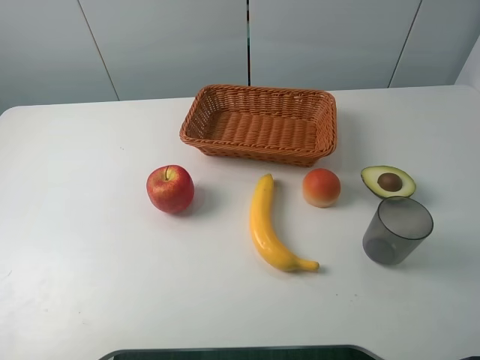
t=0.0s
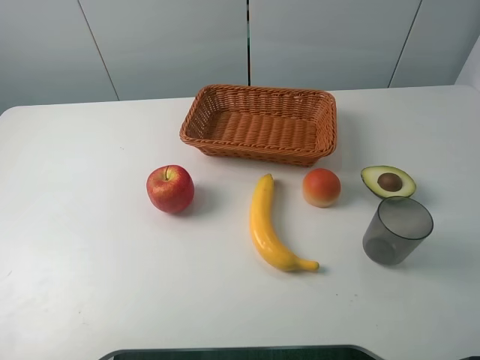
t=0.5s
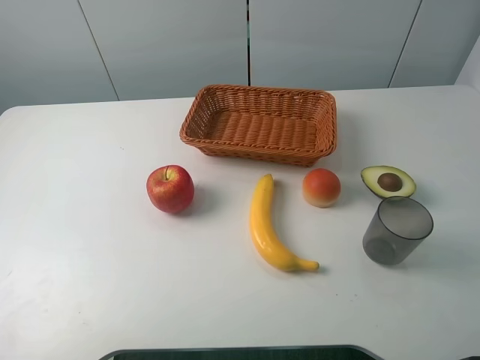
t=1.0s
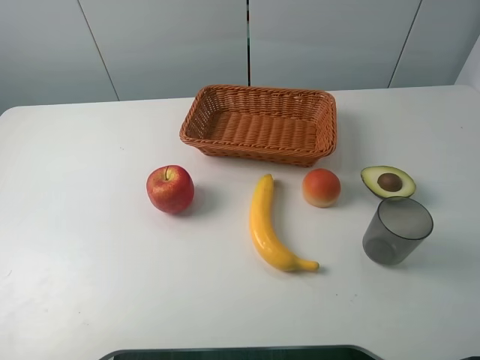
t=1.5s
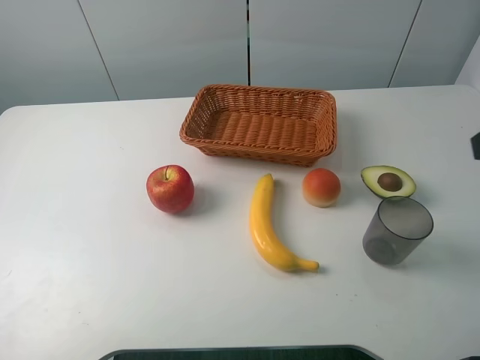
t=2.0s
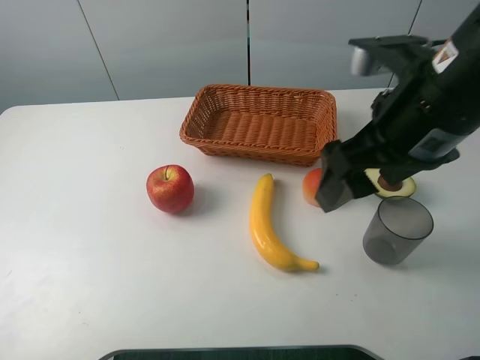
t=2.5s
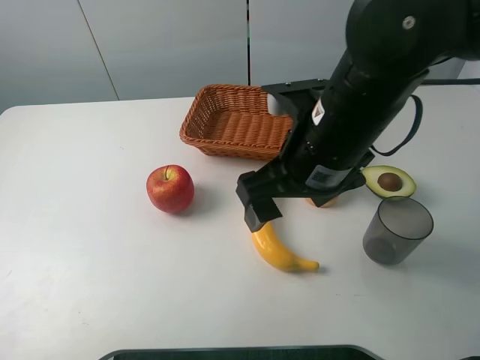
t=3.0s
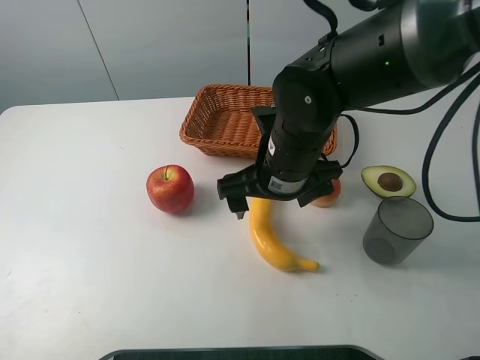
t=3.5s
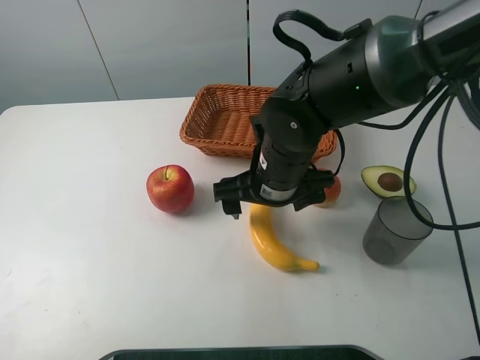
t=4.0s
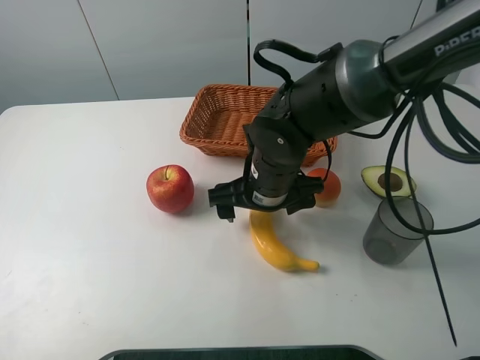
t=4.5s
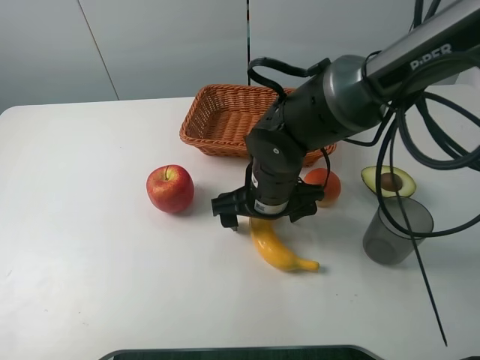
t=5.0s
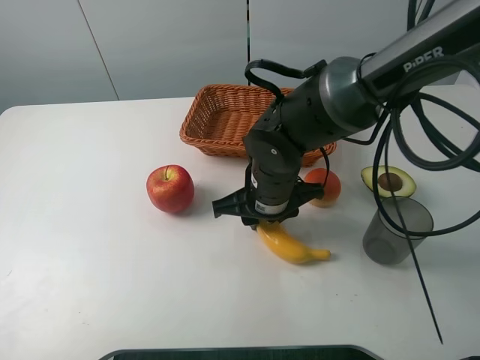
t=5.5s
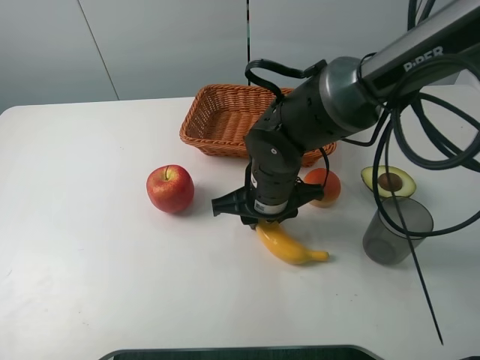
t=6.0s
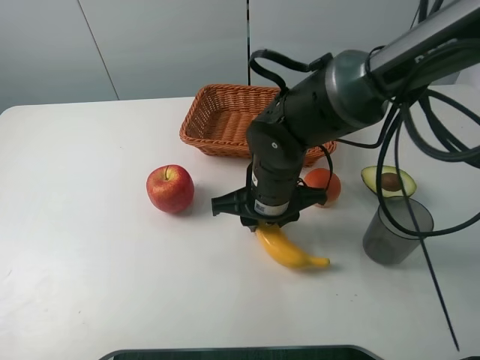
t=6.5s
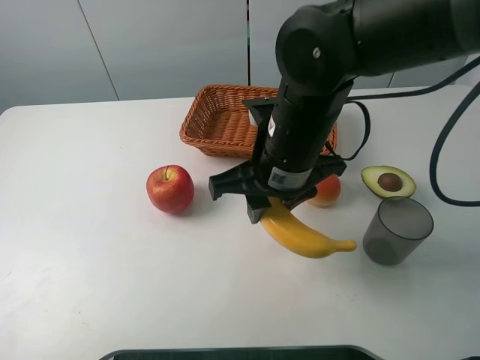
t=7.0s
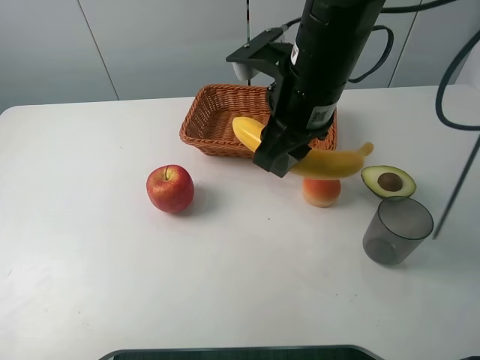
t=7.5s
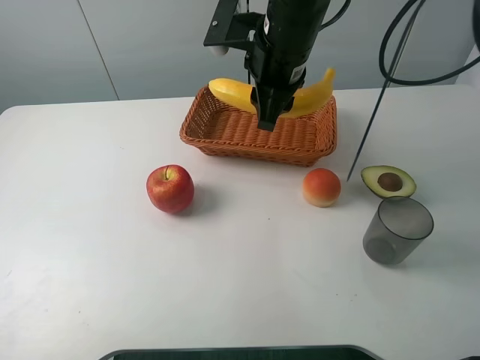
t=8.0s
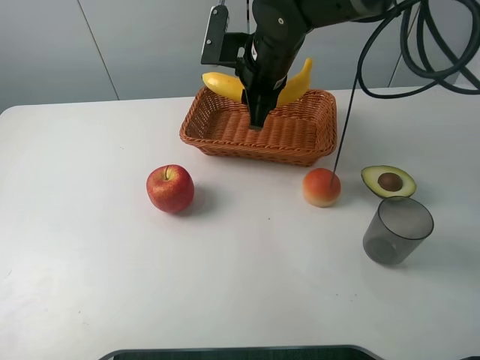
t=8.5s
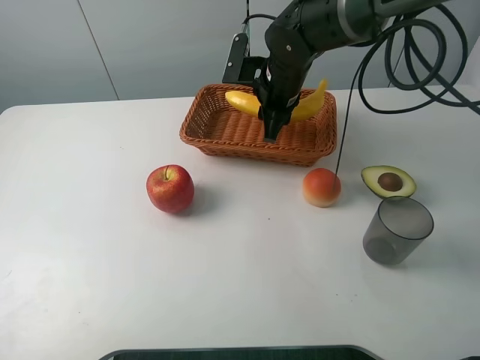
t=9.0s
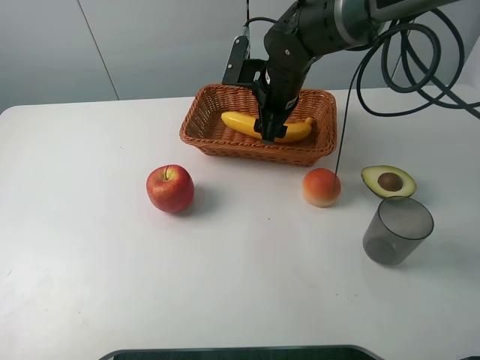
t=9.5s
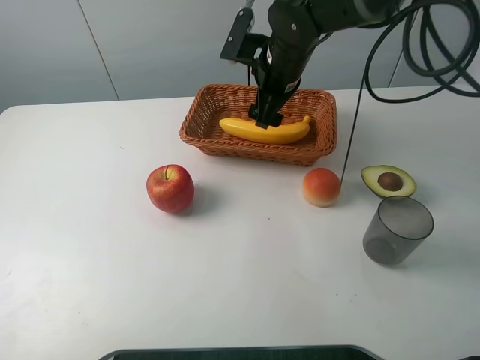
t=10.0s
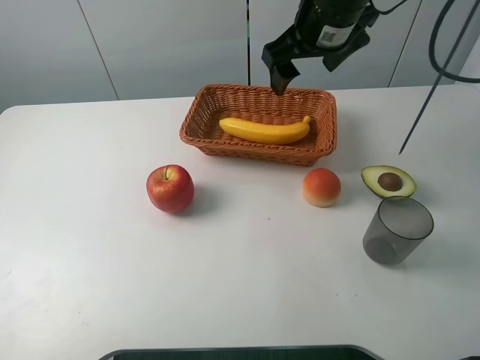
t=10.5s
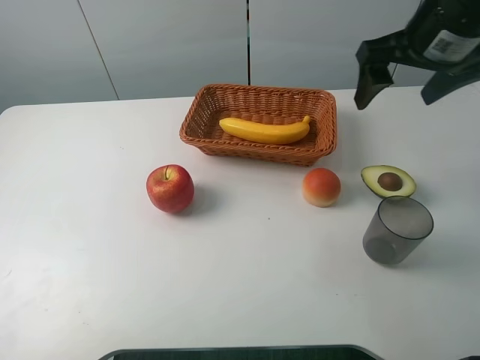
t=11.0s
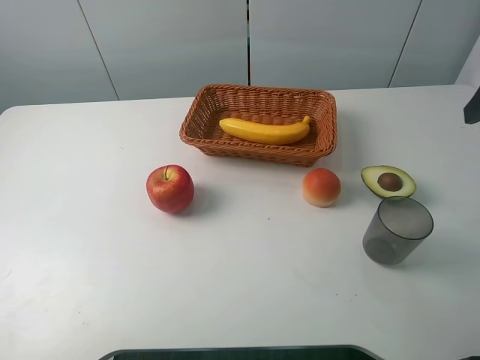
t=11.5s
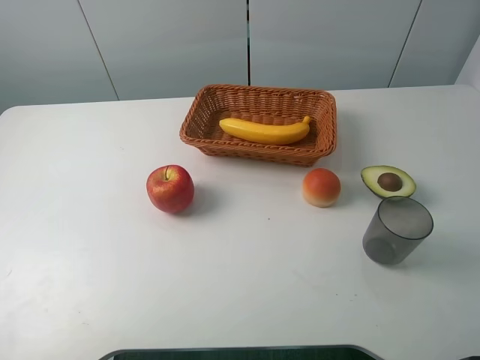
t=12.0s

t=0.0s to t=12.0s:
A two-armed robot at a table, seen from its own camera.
Task of the whole recording: randomly pick up an item from the table and put it in the basket.
Step, t=0.0s to t=5.5s: Grasp the banana with the right gripper.
Step, t=6.0s to t=10.0s: Place the banana into the basket with the right gripper.
t=2.0s to t=4.0s: The right gripper shifts about 30 cm to the left, downward and forward.
t=4.0s to t=6.0s: The right gripper closes.
t=6.0s to t=8.0s: The right gripper heads upward and forward, covering some 15 cm.
t=8.0s to t=10.0s: The right gripper heads forward, covering about 5 cm, and opens its fingers.
t=10.0s to t=12.0s: The right gripper shifts roughly 40 cm backward, to the right and upward.

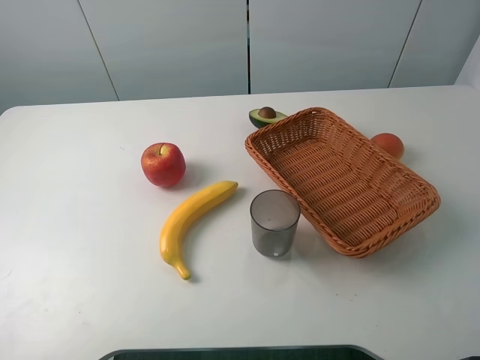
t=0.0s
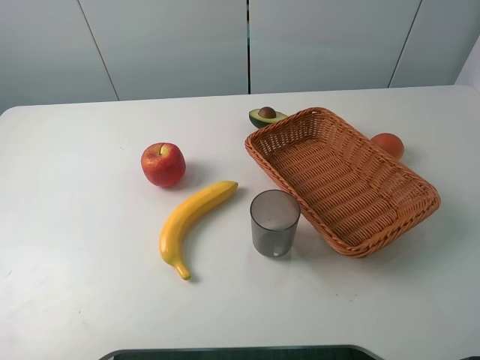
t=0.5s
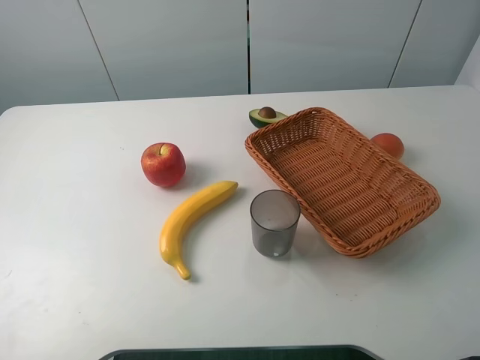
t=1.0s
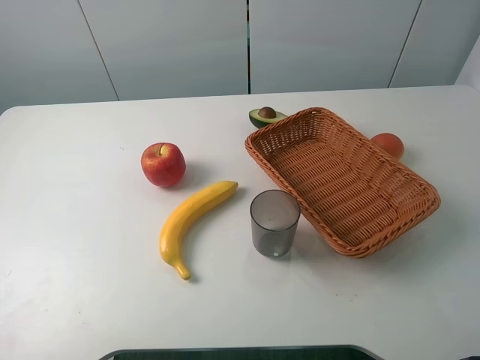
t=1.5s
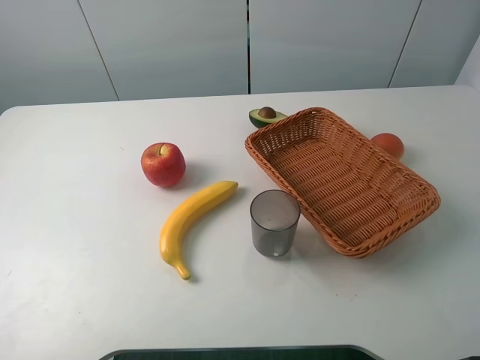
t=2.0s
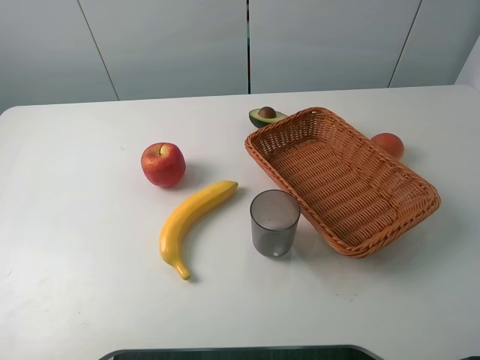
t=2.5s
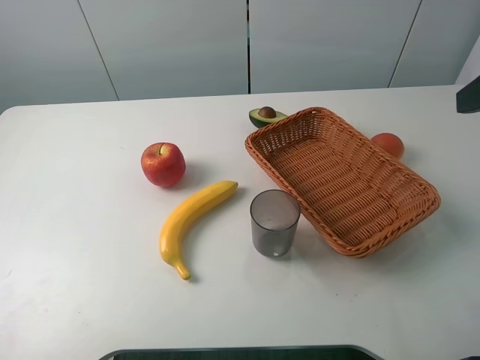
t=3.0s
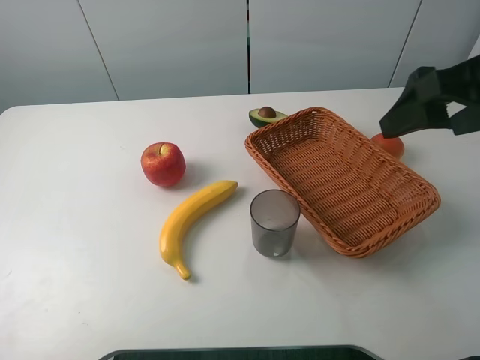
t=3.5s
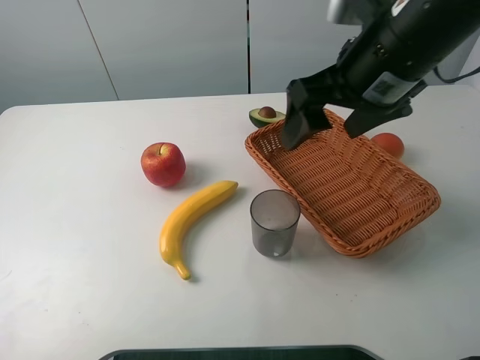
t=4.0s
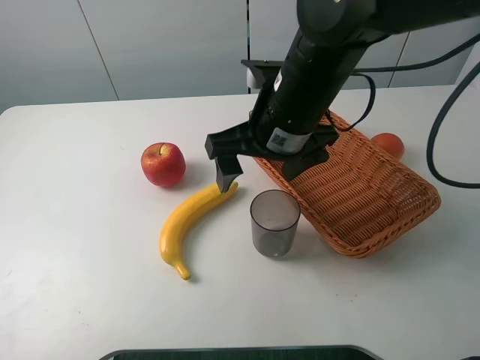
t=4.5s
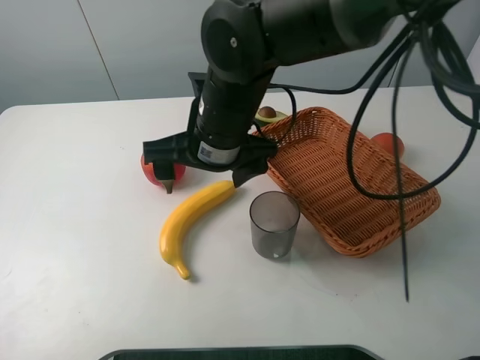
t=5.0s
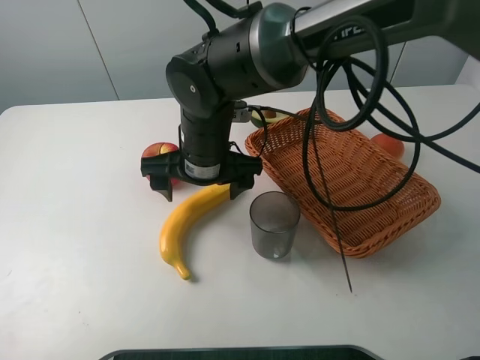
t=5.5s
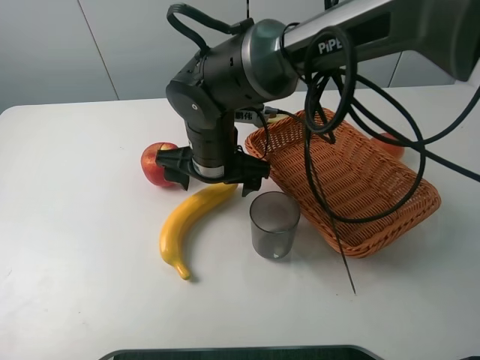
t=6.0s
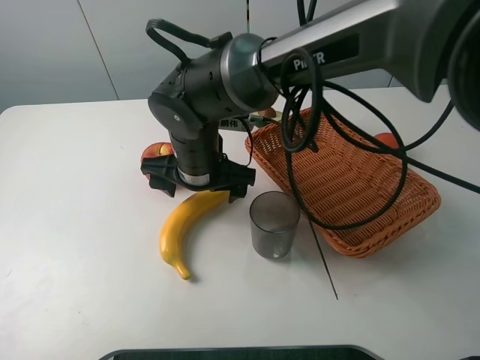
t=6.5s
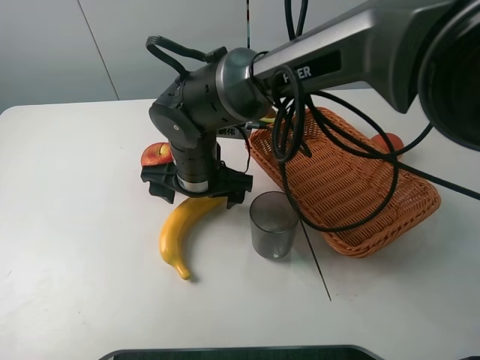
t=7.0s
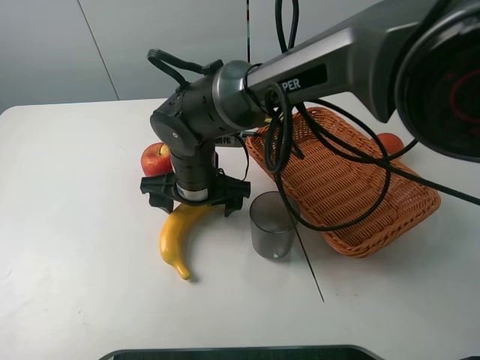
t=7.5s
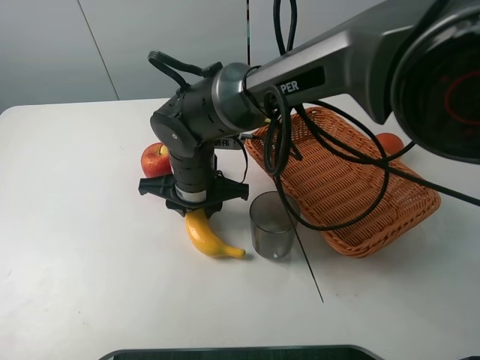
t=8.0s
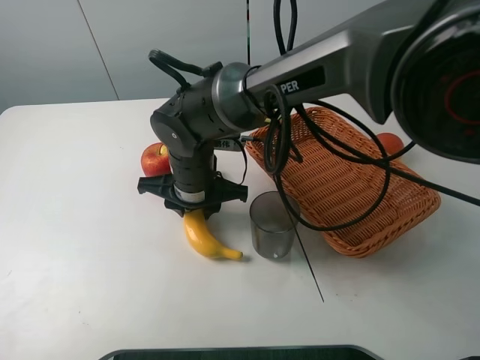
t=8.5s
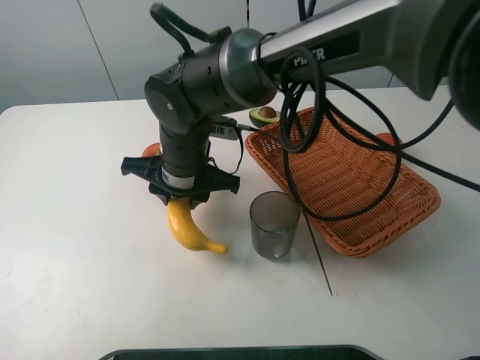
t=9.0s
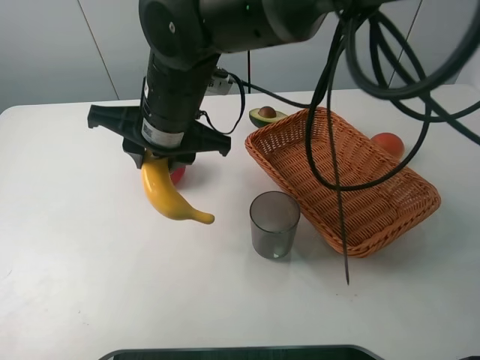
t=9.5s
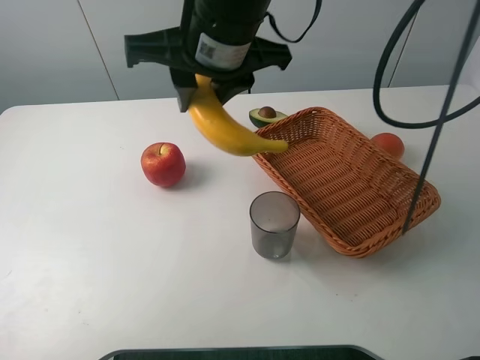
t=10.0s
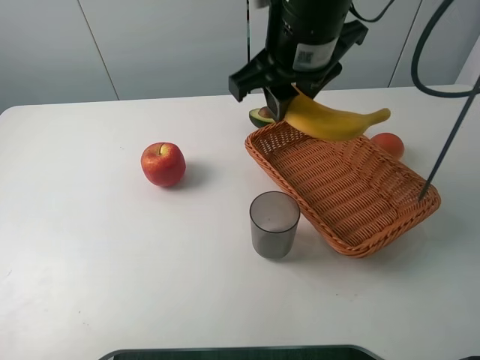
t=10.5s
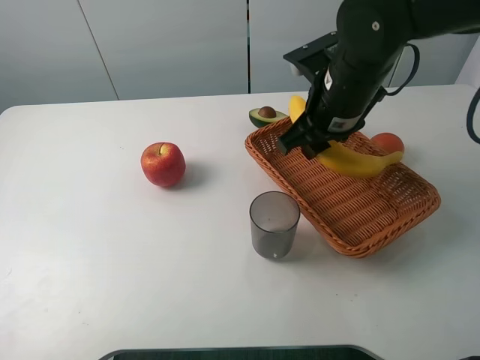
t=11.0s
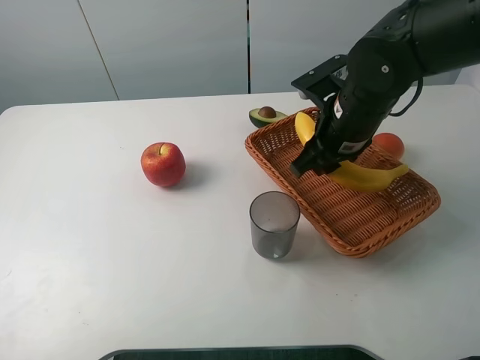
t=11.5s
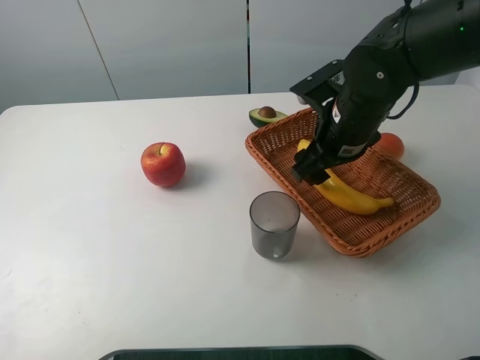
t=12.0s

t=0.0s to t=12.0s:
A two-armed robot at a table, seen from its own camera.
Task of the whole recording: randomly pick up an item from the table and put it in the basket.
Step, t=0.0s to t=8.0s: Grasp the banana with the right gripper.
t=0.0s to t=2.0s: Neither gripper changes place.
t=2.0s to t=4.0s: The right gripper shifts about 30 cm forward and to the left.
t=4.0s to t=6.0s: The right gripper travels to the left and downward by about 20 cm.
t=6.0s to t=8.0s: The right gripper closes up.
t=8.0s to t=10.0s: The right gripper shifts roughly 20 cm upward.
t=10.0s to t=12.0s: The right gripper goes roughly 20 cm downward and to the right, and opens its fingers.

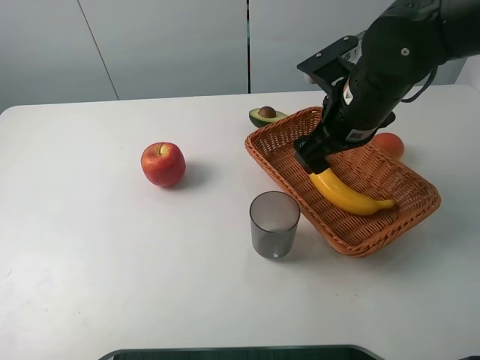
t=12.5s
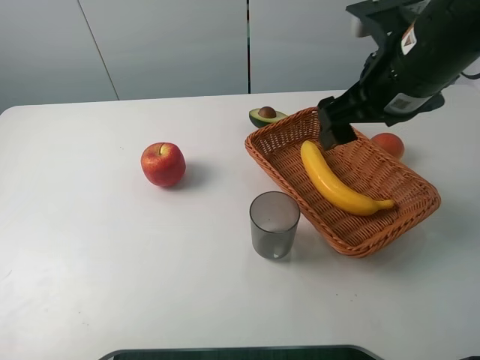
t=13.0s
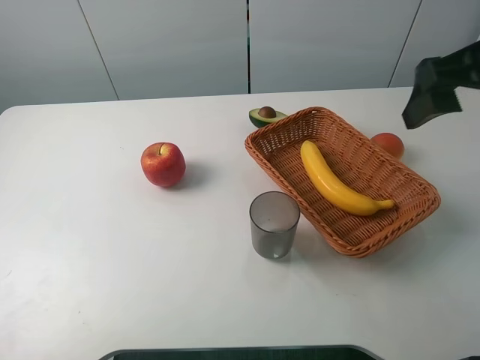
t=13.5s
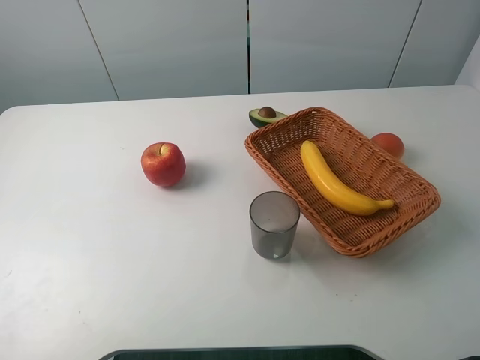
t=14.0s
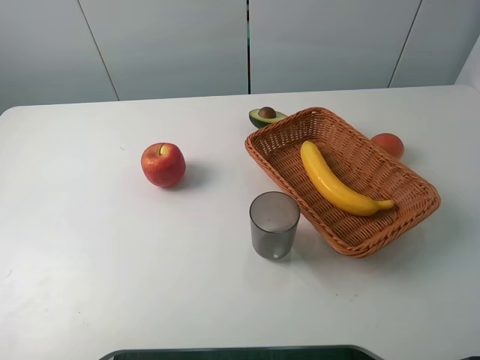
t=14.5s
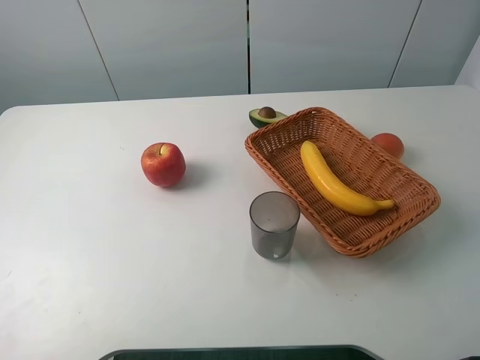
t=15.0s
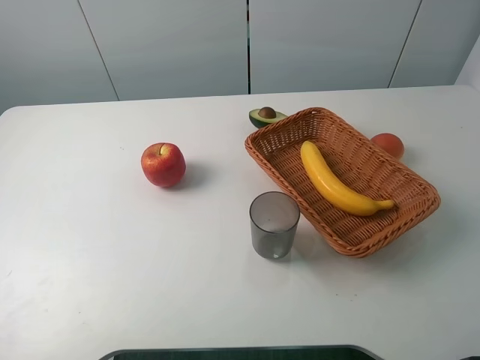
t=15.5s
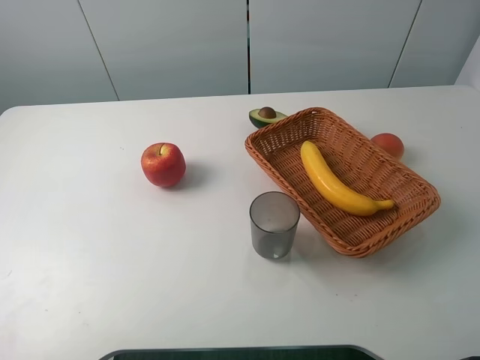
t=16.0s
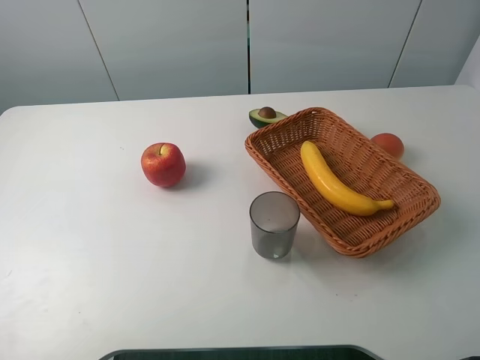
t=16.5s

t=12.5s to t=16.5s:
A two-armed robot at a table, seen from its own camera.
Task of the whole recording: randomly pick up an item from the table and put it in the basket.
t=12.5s to t=14.5s: The right gripper shifts roughly 30 cm backward, to the right and upward.
